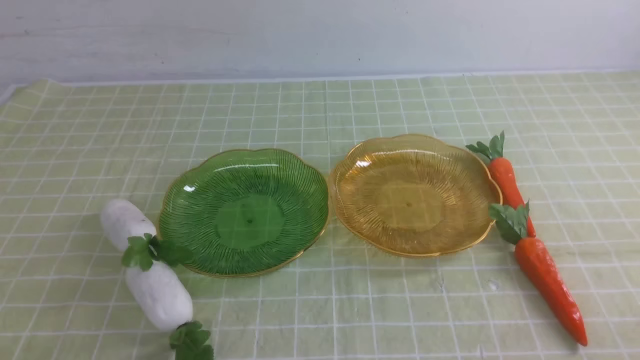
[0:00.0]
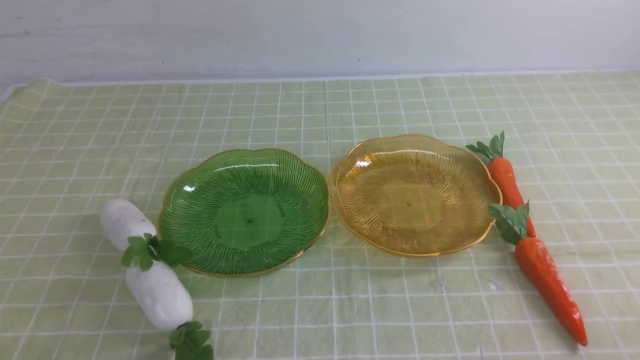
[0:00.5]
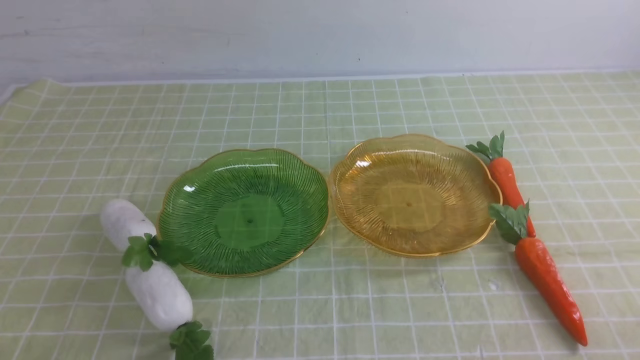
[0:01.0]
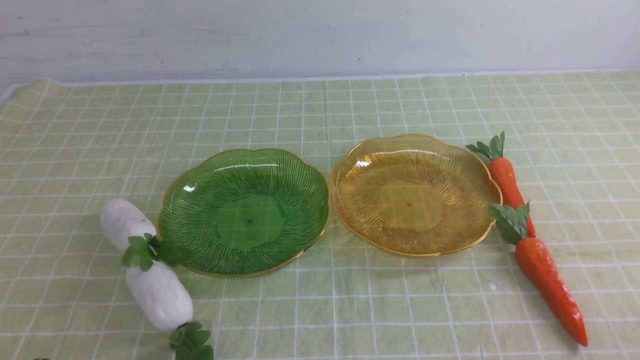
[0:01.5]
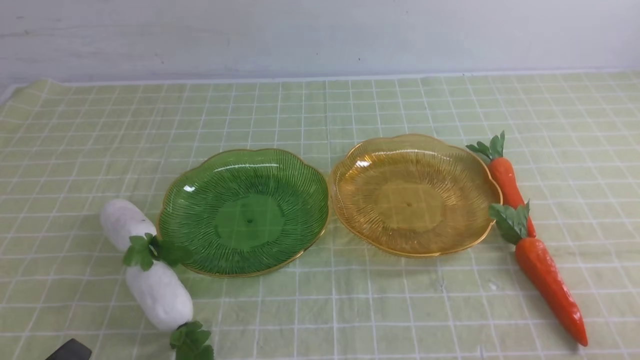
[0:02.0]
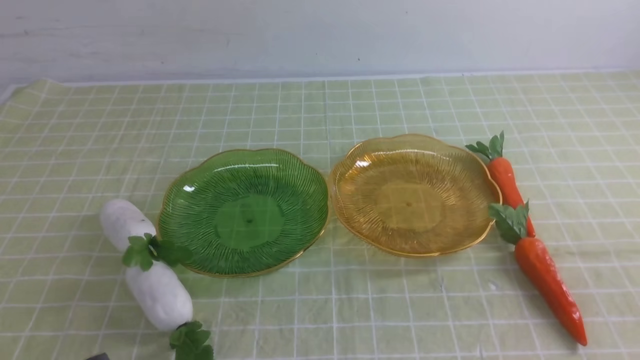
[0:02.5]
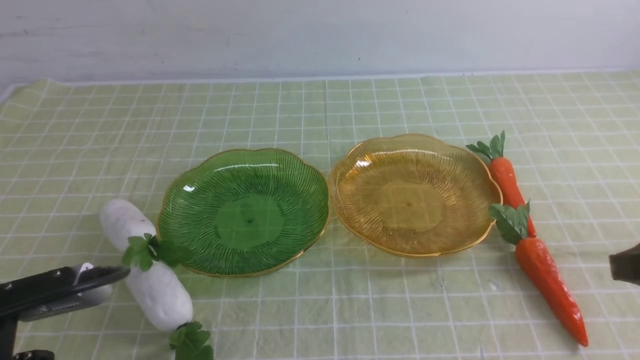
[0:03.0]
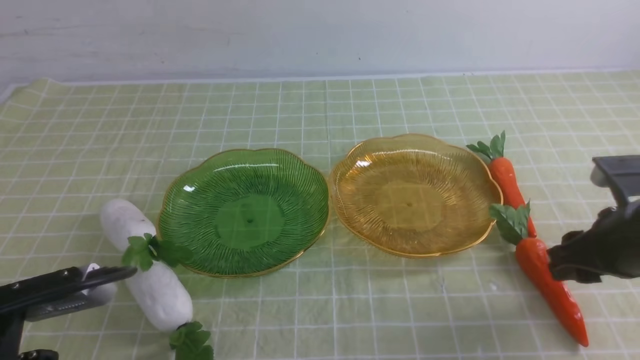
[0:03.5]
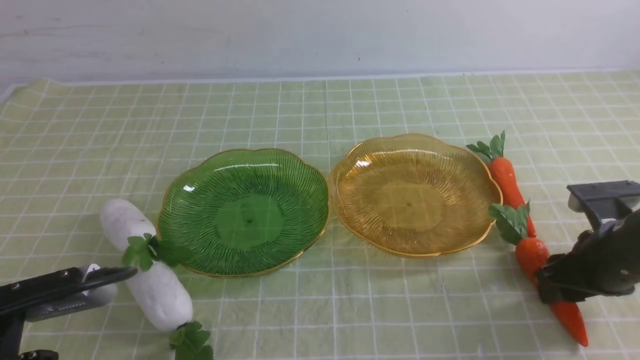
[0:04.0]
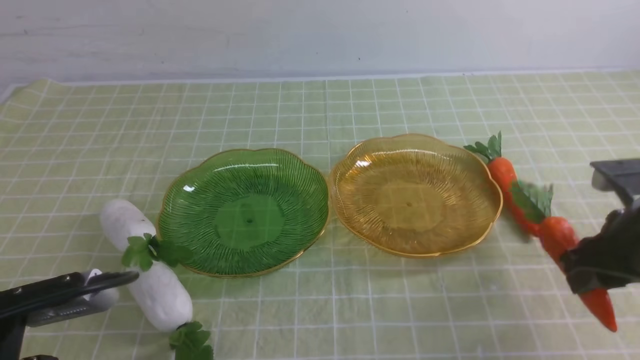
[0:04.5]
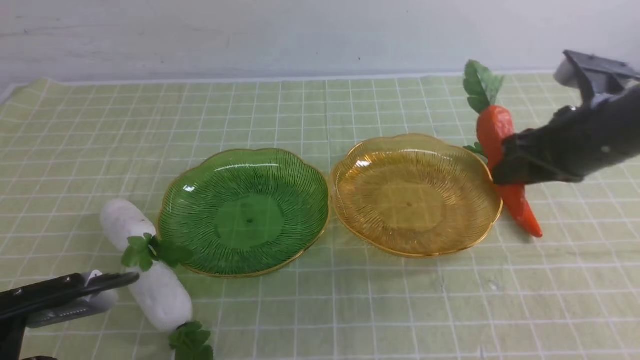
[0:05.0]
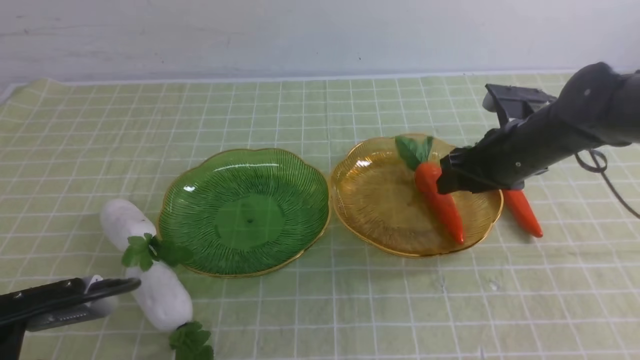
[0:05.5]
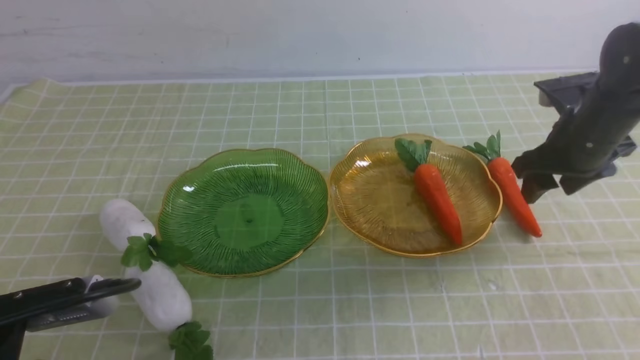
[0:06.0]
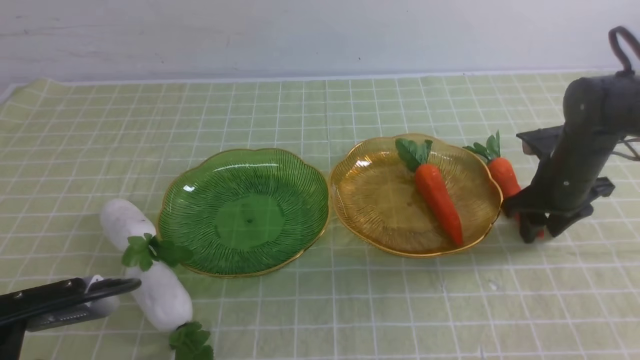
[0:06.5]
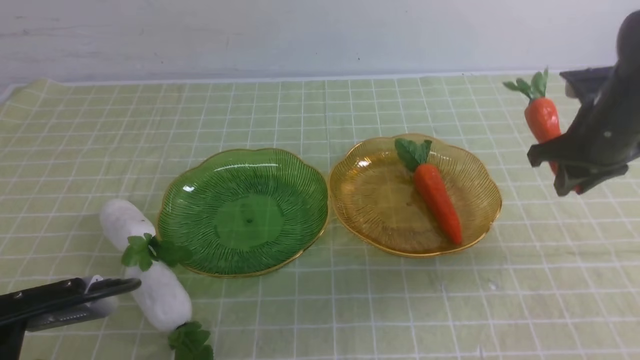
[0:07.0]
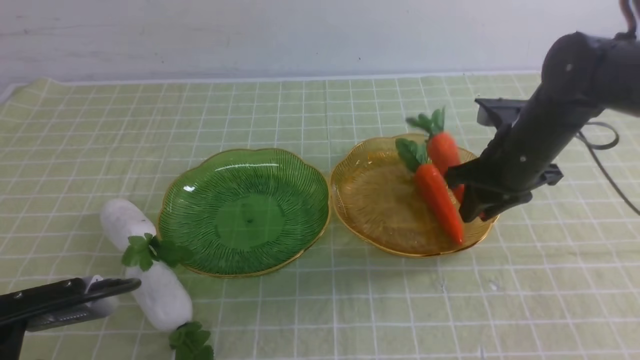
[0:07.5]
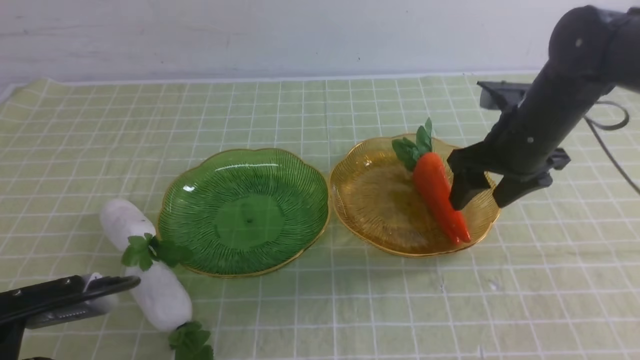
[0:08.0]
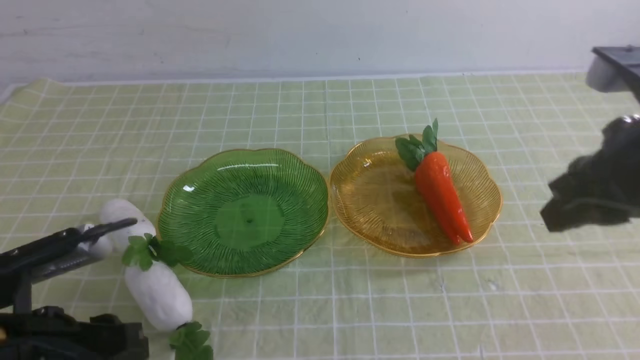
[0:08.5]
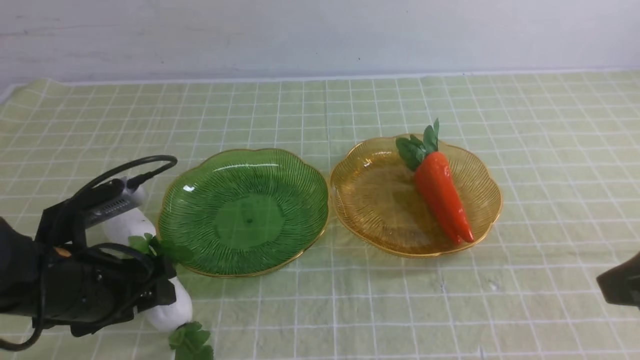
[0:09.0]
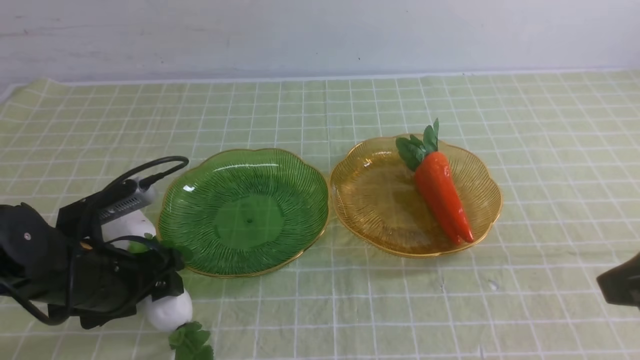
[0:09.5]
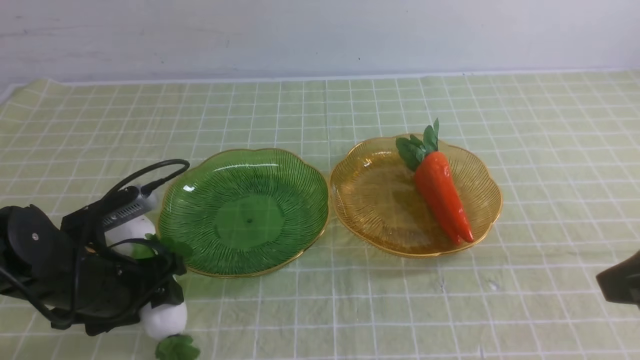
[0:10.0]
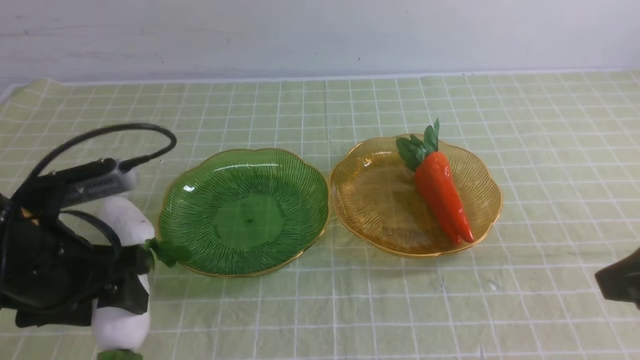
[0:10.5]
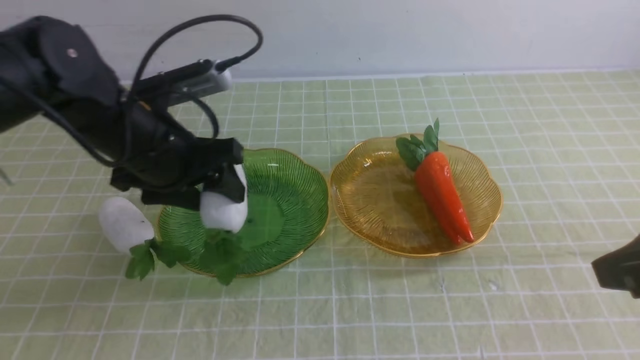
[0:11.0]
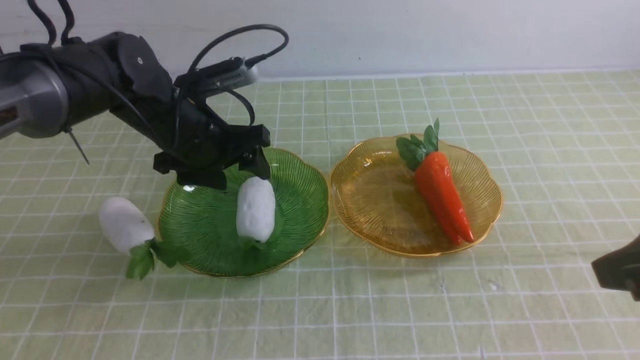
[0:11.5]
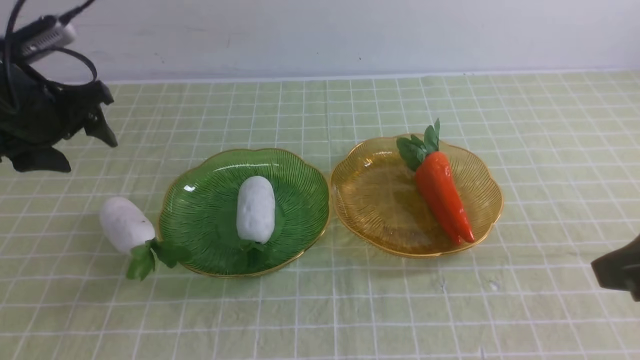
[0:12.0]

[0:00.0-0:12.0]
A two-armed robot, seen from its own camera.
Step, 0:00.0 to 0:07.5: use the right arm to grab a carrot and put it into the right plate.
0:02.0 to 0:04.0: The left gripper heads forward, covering some 5 cm. The right gripper heads forward, covering roughly 25 cm, and opens.
0:04.0 to 0:06.0: The right gripper goes about 15 cm forward and upward.
0:06.0 to 0:08.0: The right gripper heads to the left, covering roughly 5 cm, and closes, then reopens.
0:08.0 to 0:10.0: The right gripper shifts about 20 cm backward, and closes its fingers. Meanwhile the left gripper travels forward by some 15 cm, and opens its fingers.
0:10.0 to 0:12.0: The left gripper shifts about 20 cm forward, upward and to the left.

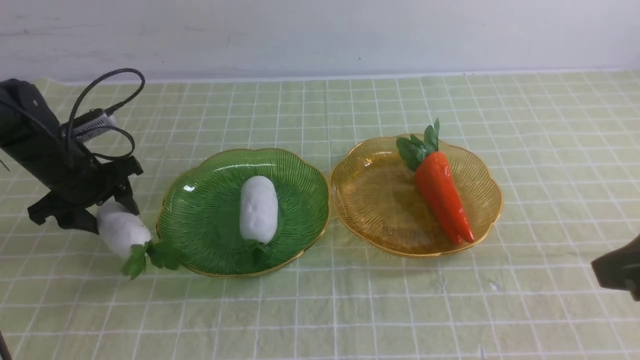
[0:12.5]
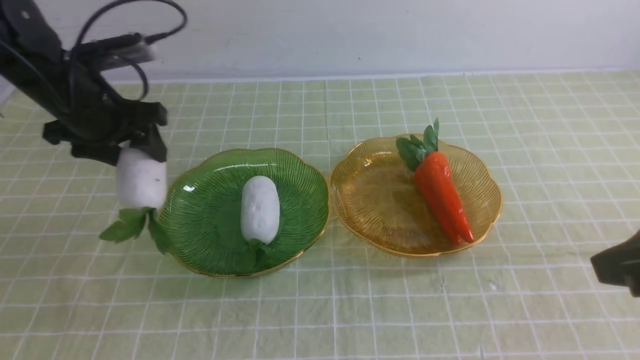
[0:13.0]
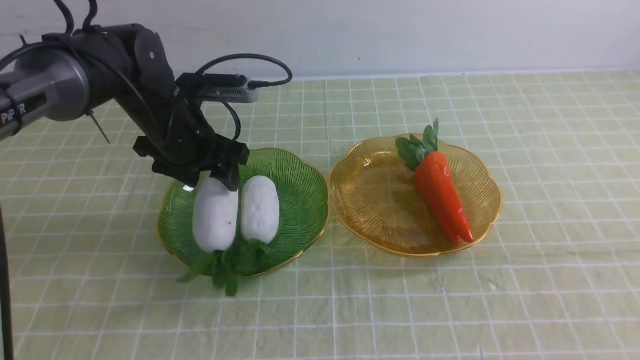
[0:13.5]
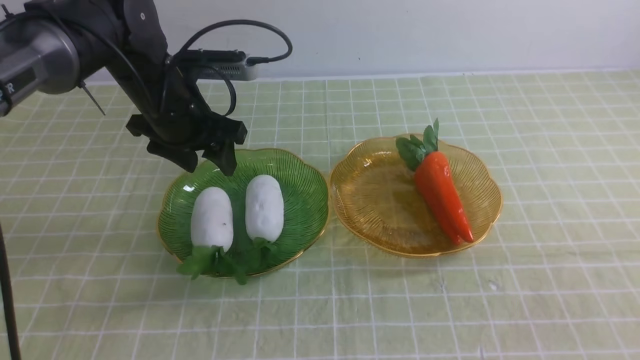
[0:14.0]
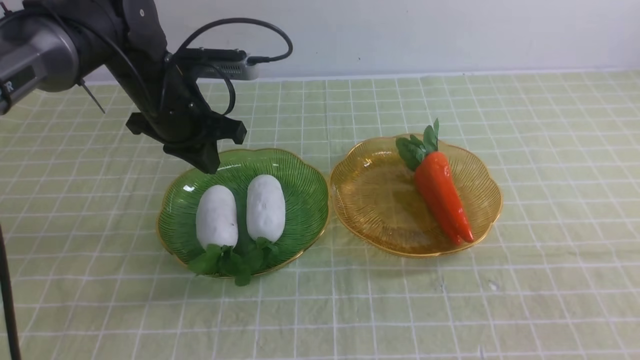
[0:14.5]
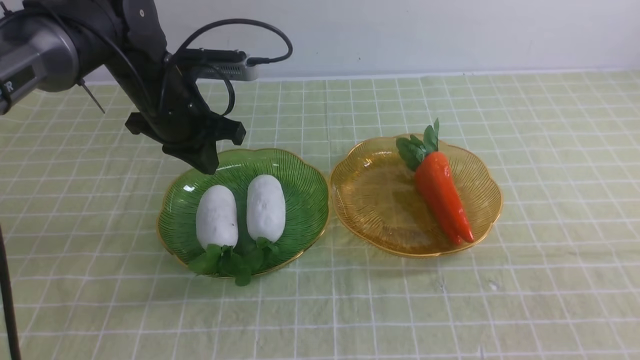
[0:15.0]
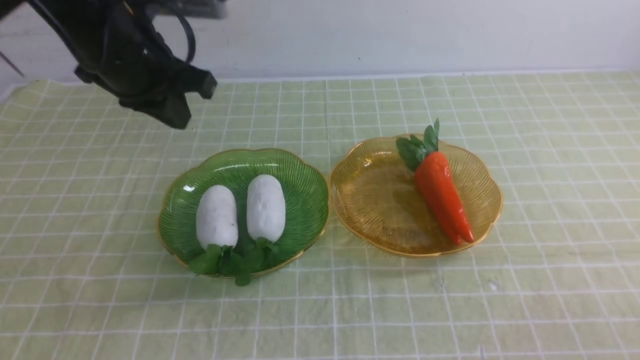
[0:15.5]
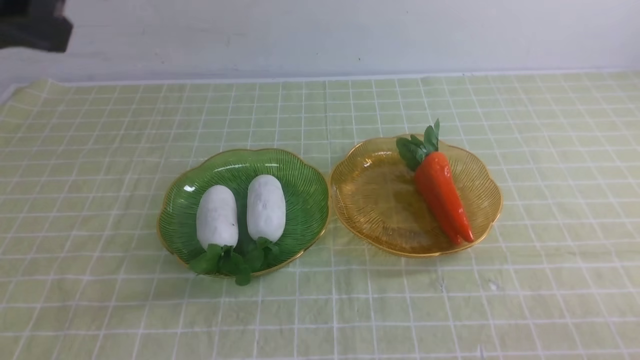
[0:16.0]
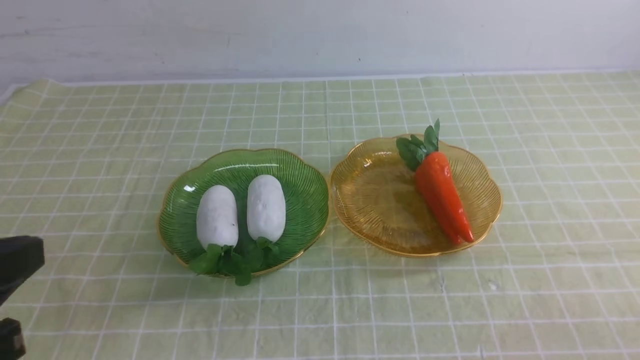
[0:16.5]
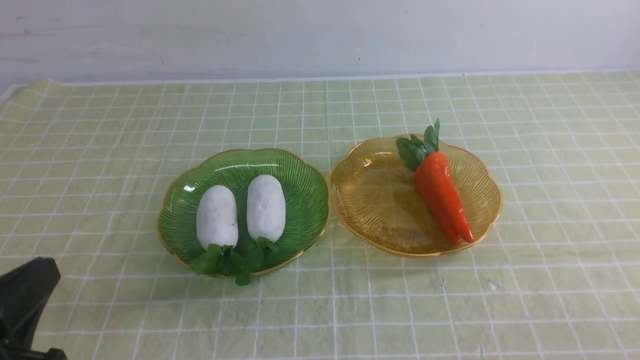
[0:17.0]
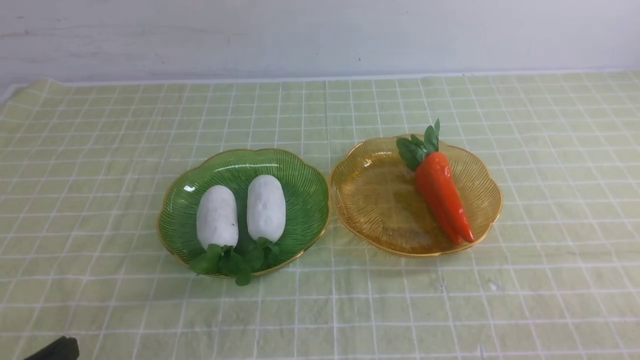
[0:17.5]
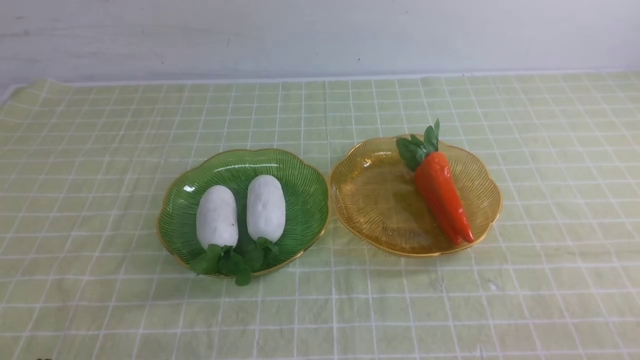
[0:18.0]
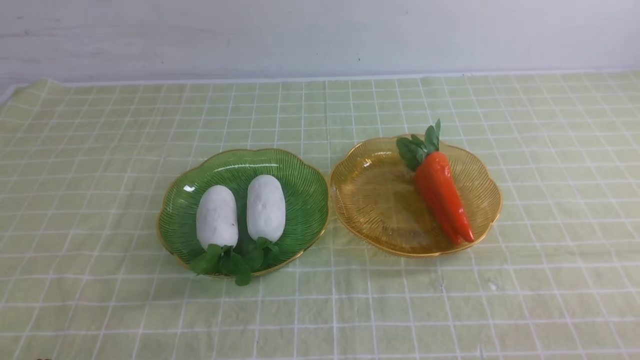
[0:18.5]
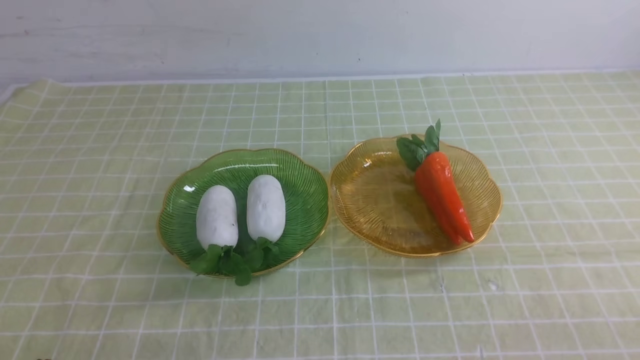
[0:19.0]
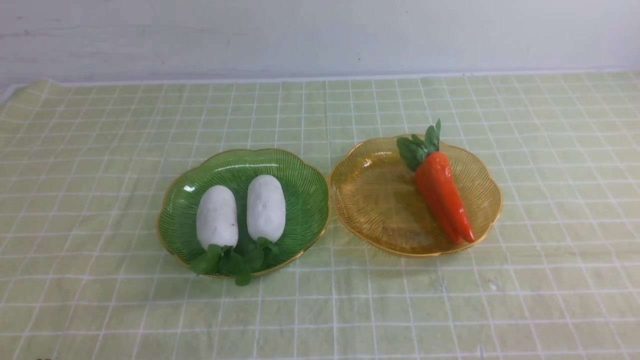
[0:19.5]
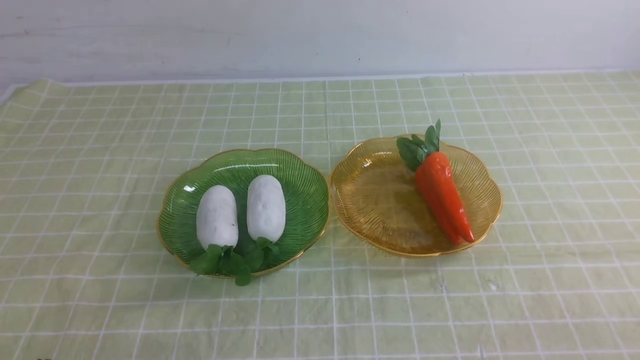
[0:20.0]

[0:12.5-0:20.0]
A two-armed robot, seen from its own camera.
0:12.5 to 0:14.5: The left gripper shifts about 15 cm to the right and upward, and closes its fingers. The right gripper travels backward and downward by roughly 10 cm.
0:14.5 to 0:16.5: The right gripper heads downward, covering about 10 cm. The left gripper goes some 35 cm backward.
0:16.5 to 0:18.0: The left gripper is displaced downward by approximately 20 cm.
0:18.0 to 0:20.0: The two grippers keep their place.
